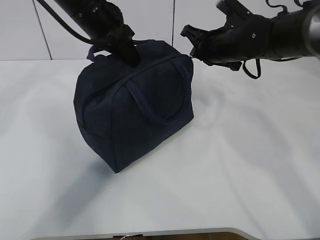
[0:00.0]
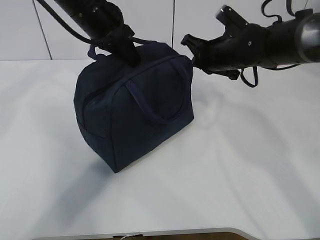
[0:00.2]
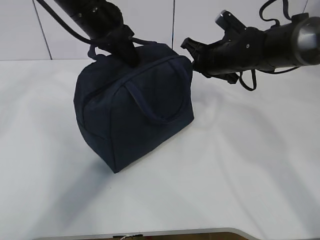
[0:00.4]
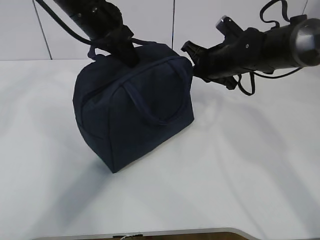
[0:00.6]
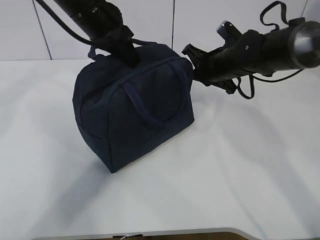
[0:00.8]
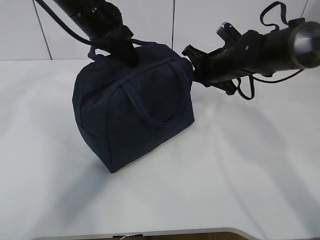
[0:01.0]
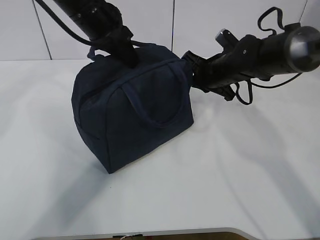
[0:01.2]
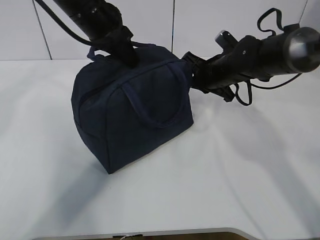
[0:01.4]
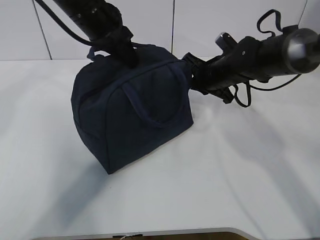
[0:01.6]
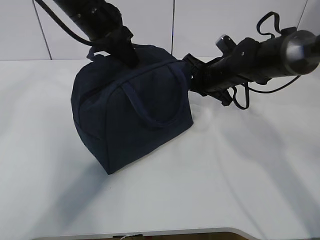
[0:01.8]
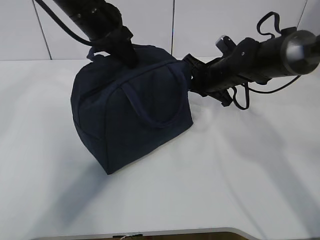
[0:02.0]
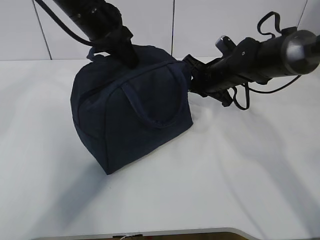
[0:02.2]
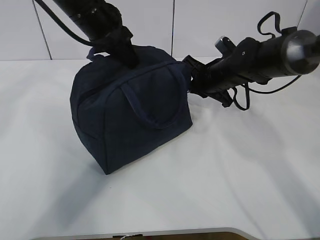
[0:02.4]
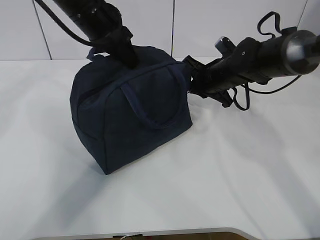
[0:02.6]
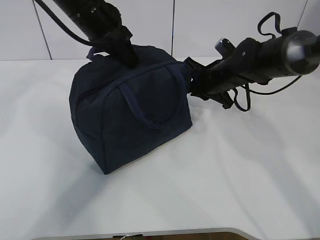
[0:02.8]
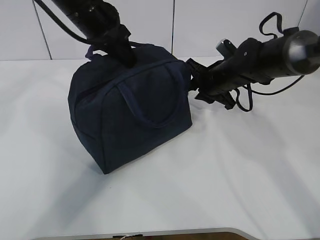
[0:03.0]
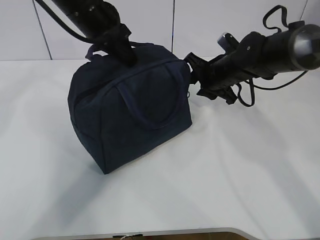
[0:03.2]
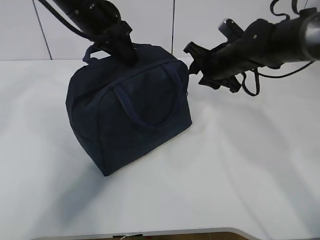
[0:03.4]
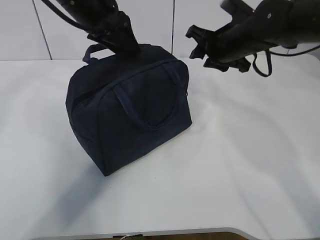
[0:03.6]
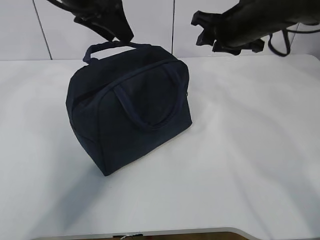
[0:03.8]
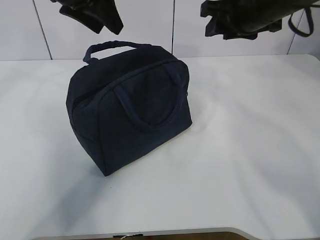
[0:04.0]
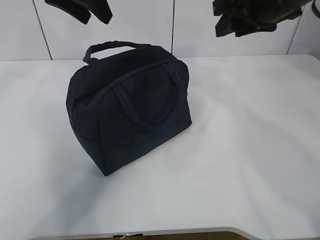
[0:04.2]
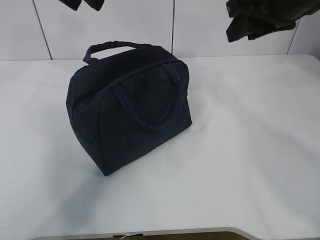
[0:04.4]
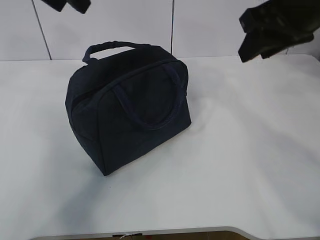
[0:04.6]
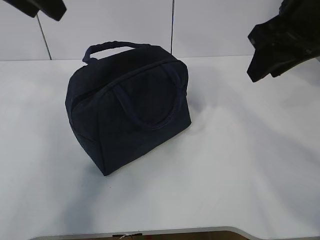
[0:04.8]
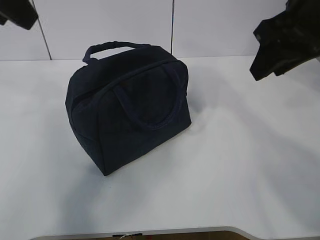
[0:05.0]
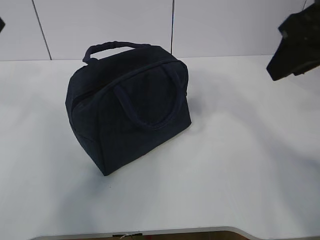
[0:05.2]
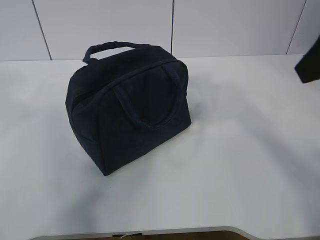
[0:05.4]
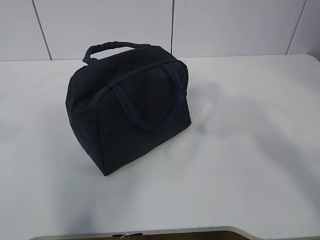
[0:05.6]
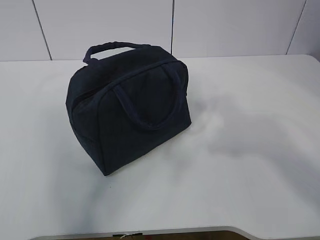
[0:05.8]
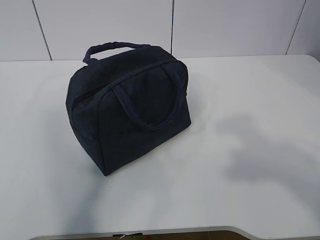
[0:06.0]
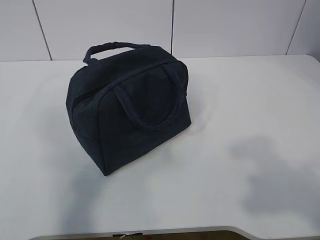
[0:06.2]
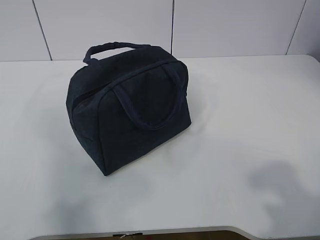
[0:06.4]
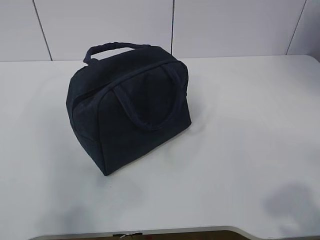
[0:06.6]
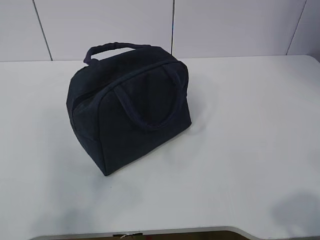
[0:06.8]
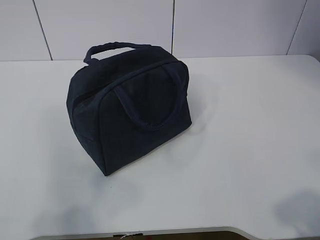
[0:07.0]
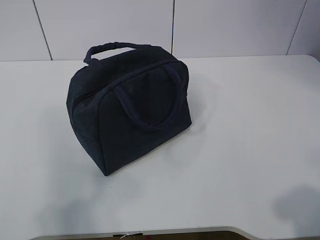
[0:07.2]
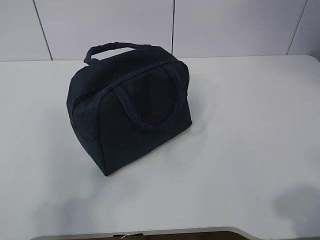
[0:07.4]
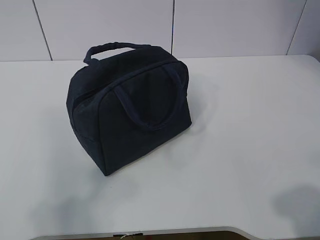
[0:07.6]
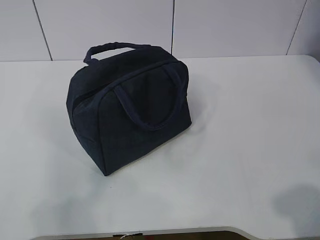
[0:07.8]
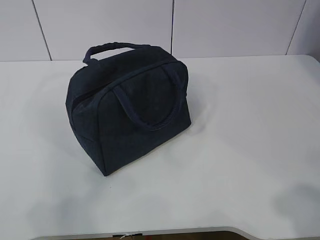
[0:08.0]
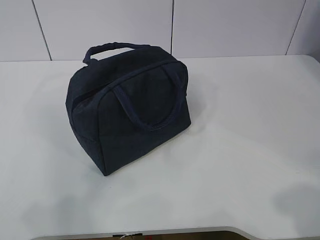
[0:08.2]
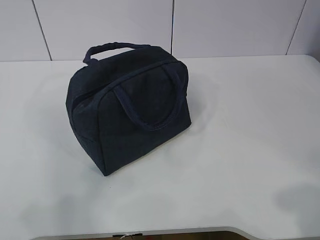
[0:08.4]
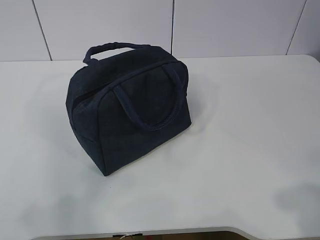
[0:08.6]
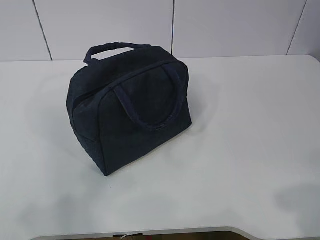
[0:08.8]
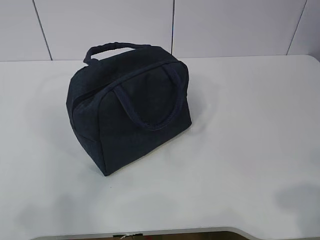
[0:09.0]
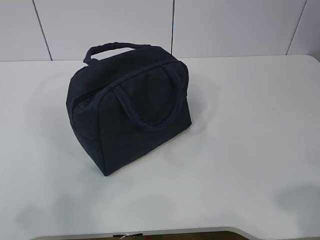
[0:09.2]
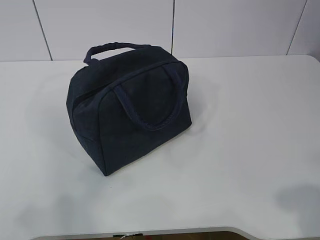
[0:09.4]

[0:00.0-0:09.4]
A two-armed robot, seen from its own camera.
0:00.0 to 0:01.6: The right gripper is displaced downward by some 5 cm.
0:01.6 to 0:03.2: The right gripper opens.
0:03.2 to 0:04.8: The left gripper moves upward, backward and to the left, roughly 20 cm, and opens. Meanwhile the right gripper moves upward and backward, about 25 cm.
0:04.8 to 0:06.2: The left gripper goes about 30 cm backward and to the left; the right gripper shifts roughly 25 cm backward.
0:06.2 to 0:07.8: The grippers both shift downward by some 10 cm.
